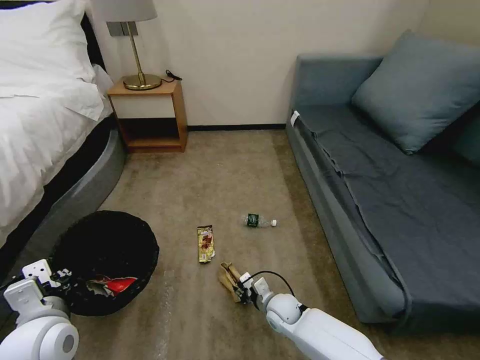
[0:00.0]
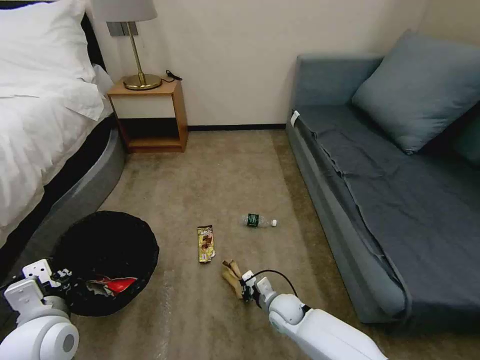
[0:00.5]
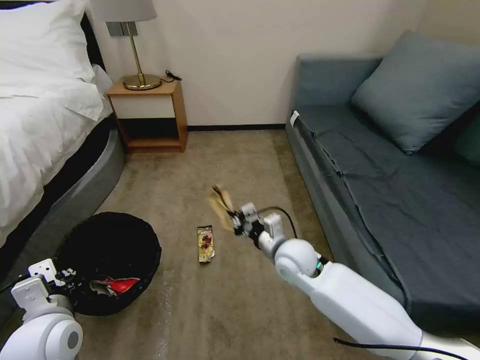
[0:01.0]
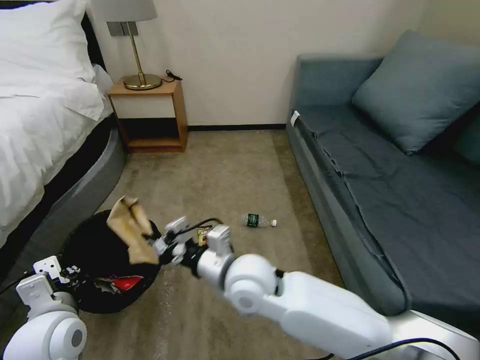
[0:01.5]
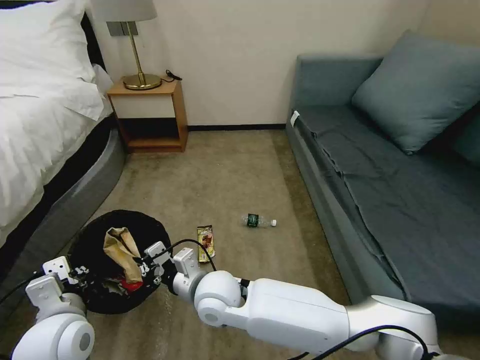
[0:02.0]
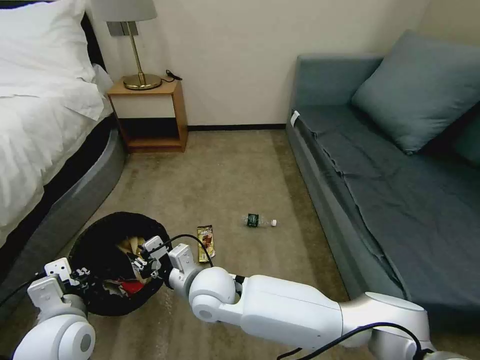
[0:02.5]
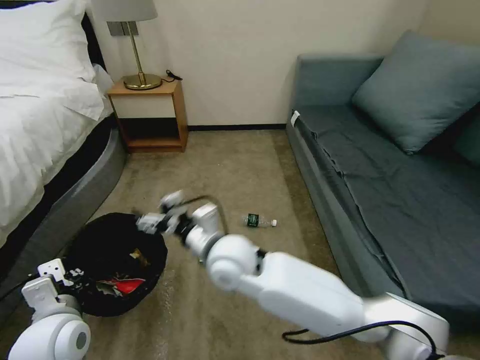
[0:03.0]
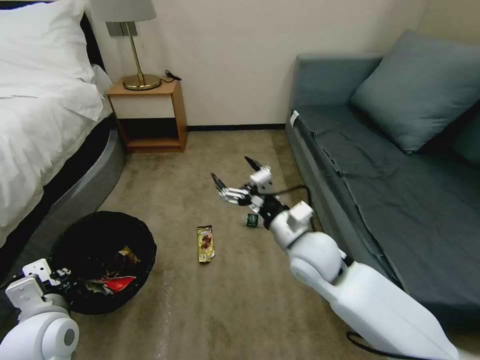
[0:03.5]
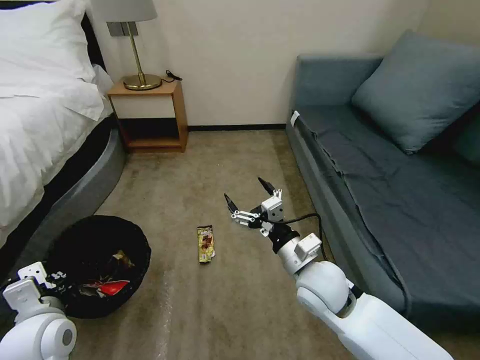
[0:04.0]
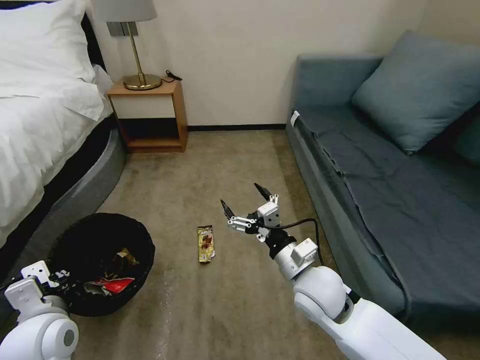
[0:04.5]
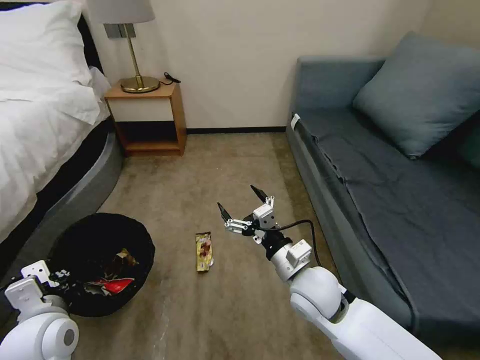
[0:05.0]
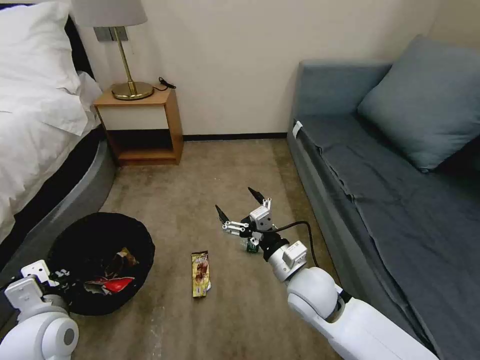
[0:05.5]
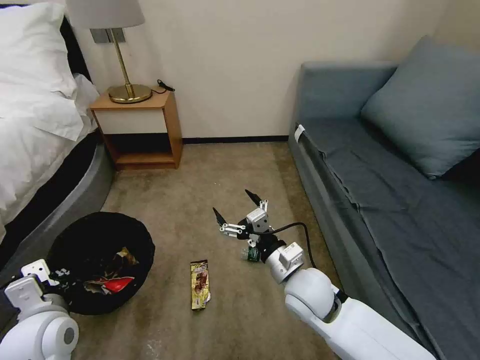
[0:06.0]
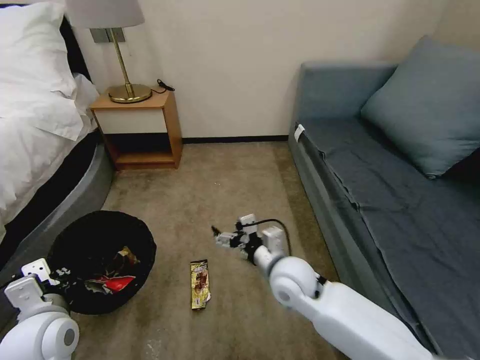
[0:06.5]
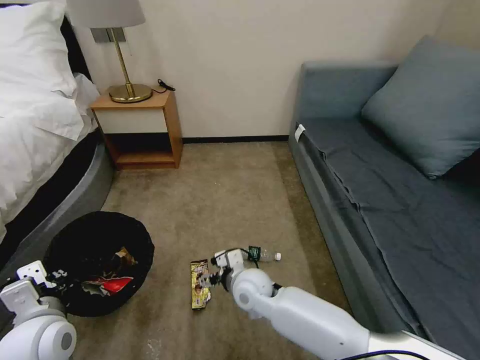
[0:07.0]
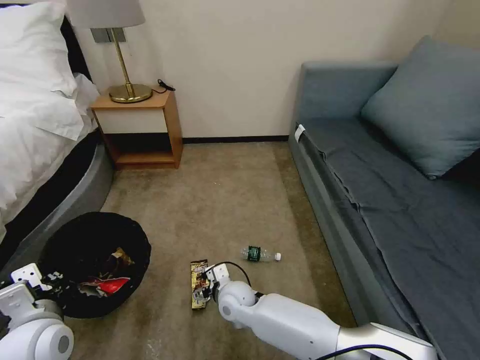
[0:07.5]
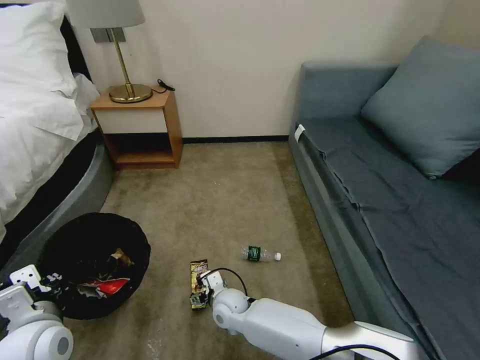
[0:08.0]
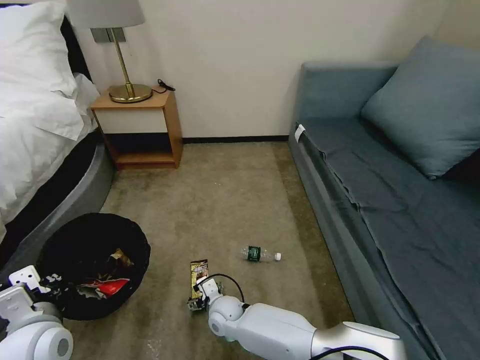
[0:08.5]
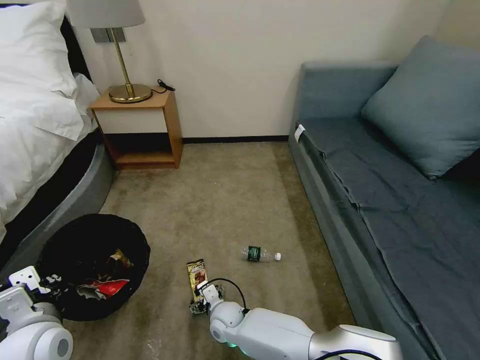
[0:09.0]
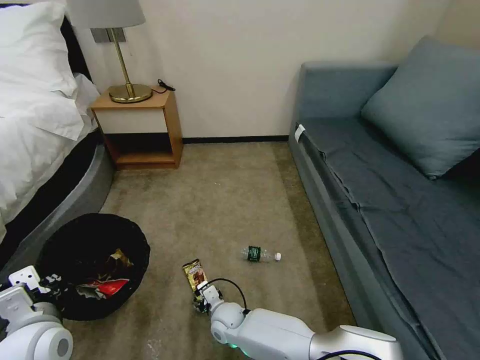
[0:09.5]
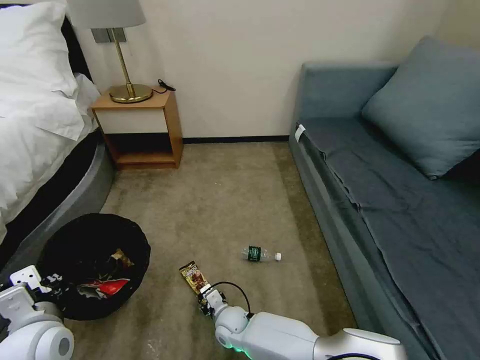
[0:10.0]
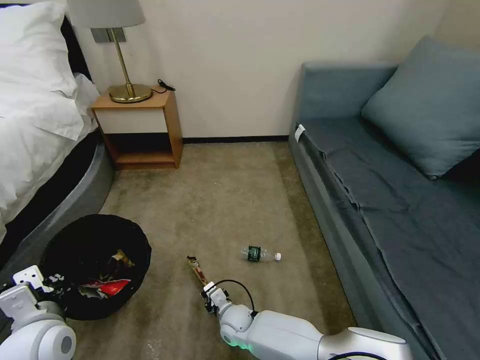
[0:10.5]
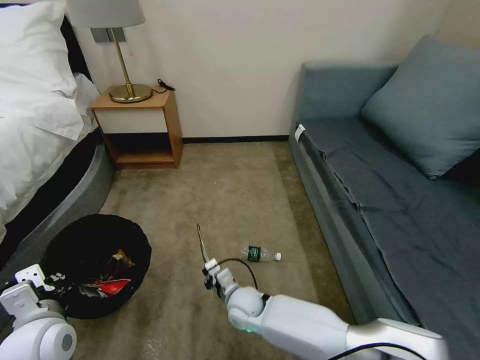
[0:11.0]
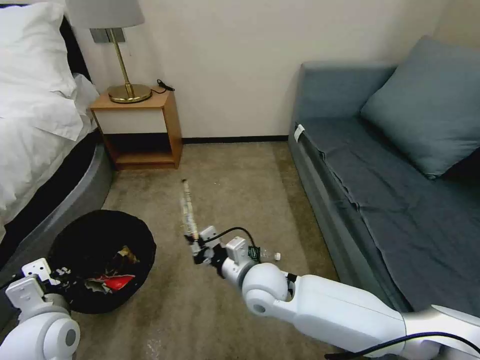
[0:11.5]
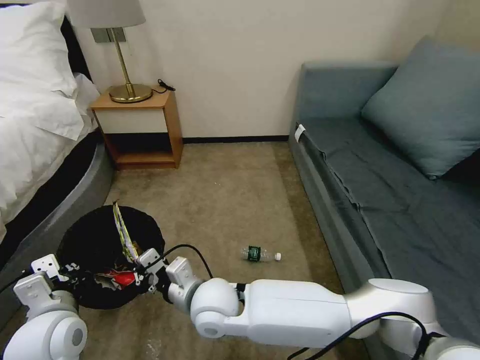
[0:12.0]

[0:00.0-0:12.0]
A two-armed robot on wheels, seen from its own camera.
Task of the whole recording: Pick up the trash bin, then pick up the garbage on the floor and place it into the trash bin.
0:00.0 to 0:02.0: The right gripper is displaced upward and to the left by some 30 cm, and closes its fingers.
0:02.0 to 0:04.0: The right gripper moves to the right, some 20 cm, and opens up.
0:06.0 to 0:08.0: The right gripper travels downward and to the left by some 25 cm.
0:08.0 to 0:10.0: The right gripper is displaced downward by approximately 5 cm, and closes its fingers.
0:10.0 to 0:12.0: The right gripper is displaced upward by some 25 cm, and closes its fingers.

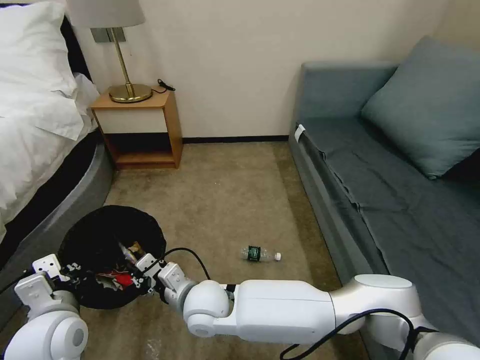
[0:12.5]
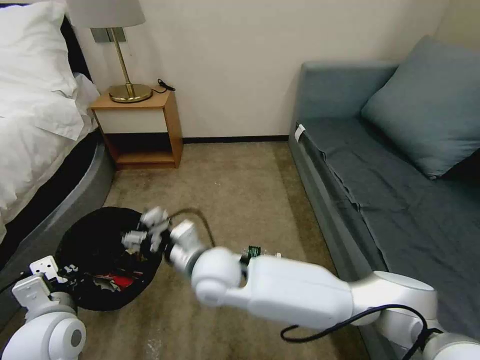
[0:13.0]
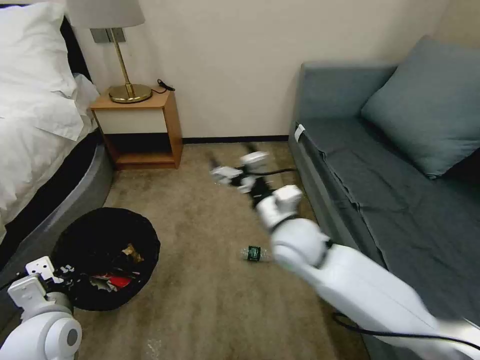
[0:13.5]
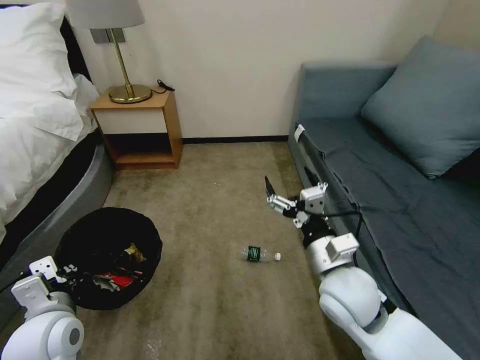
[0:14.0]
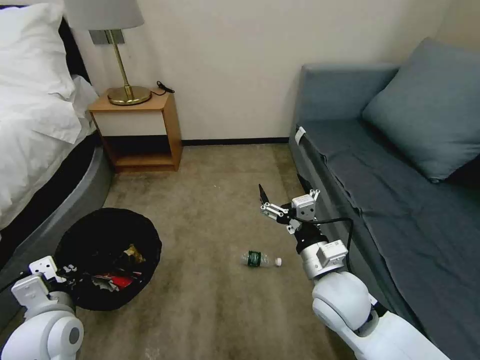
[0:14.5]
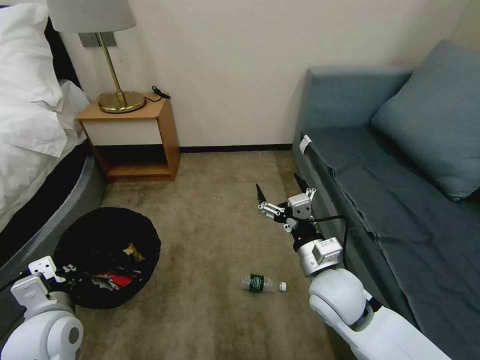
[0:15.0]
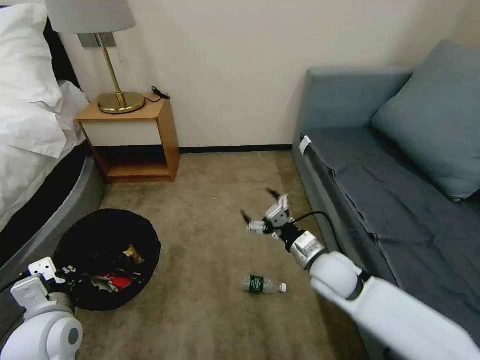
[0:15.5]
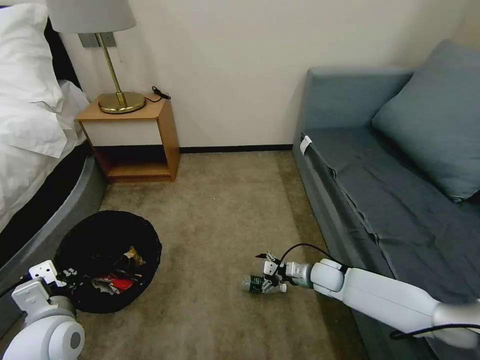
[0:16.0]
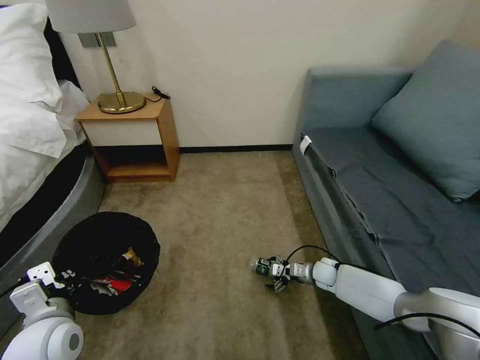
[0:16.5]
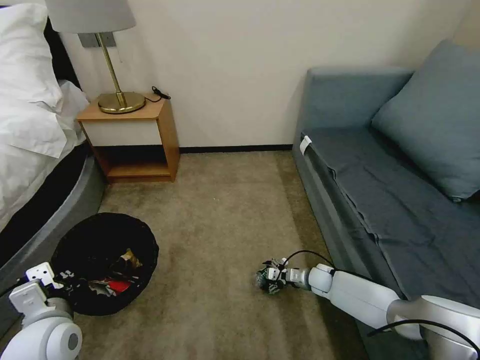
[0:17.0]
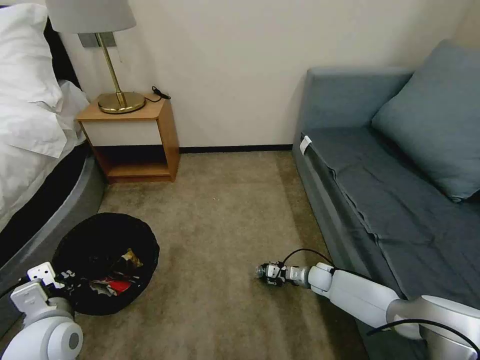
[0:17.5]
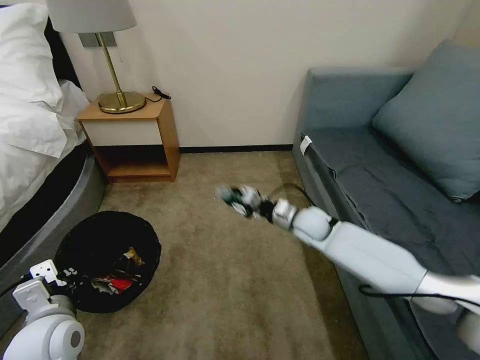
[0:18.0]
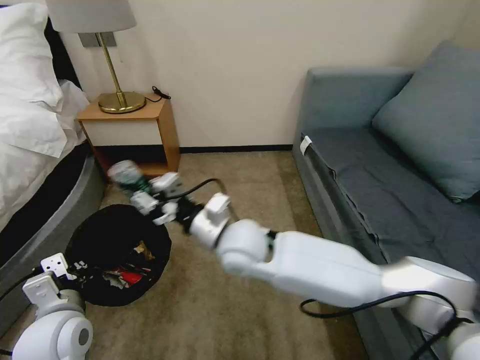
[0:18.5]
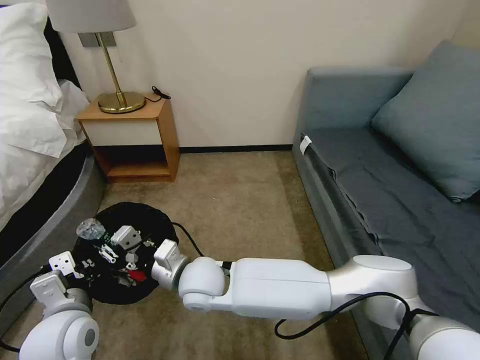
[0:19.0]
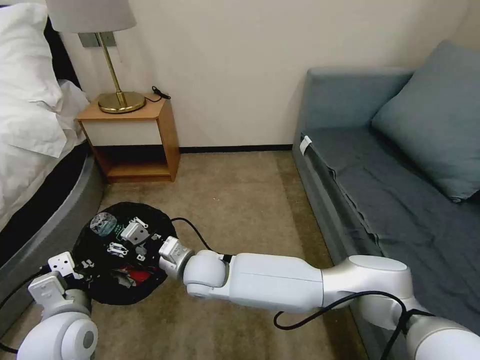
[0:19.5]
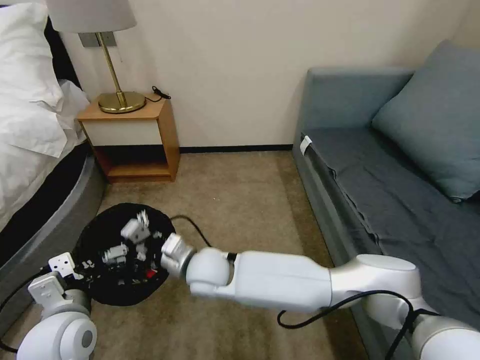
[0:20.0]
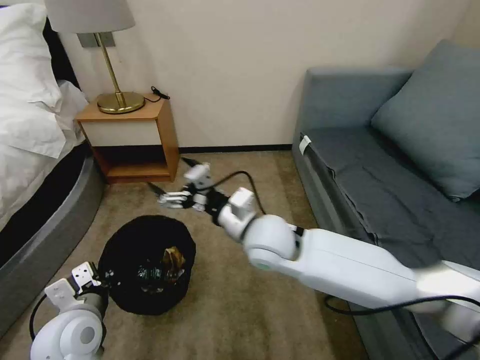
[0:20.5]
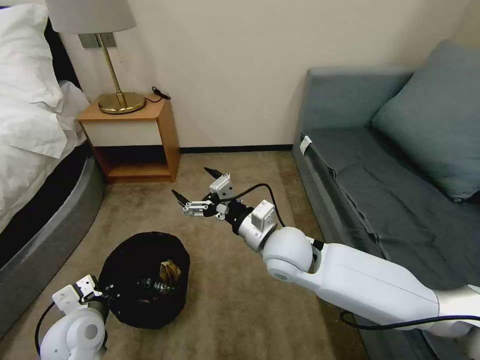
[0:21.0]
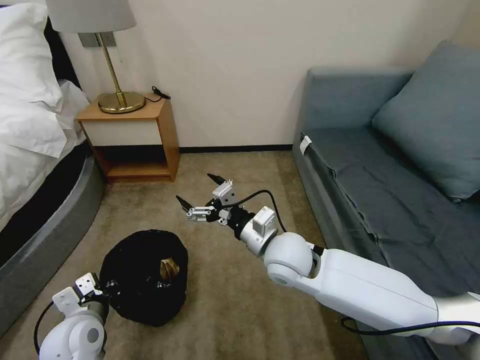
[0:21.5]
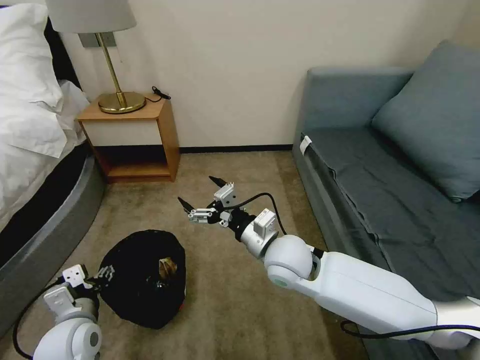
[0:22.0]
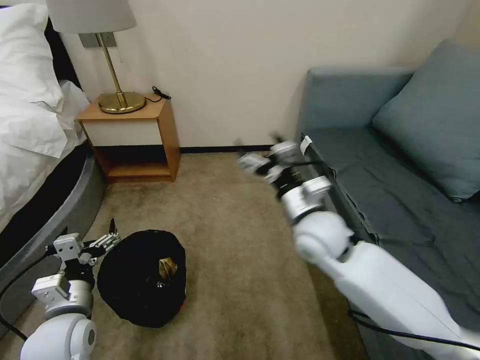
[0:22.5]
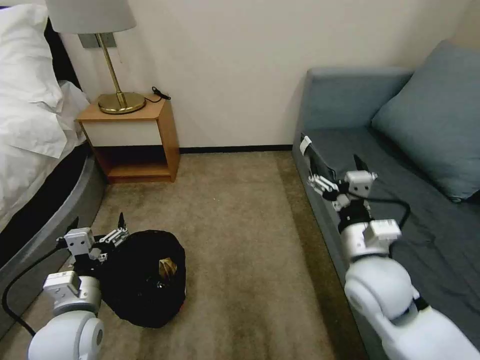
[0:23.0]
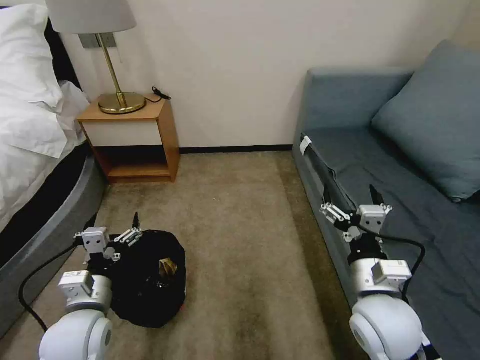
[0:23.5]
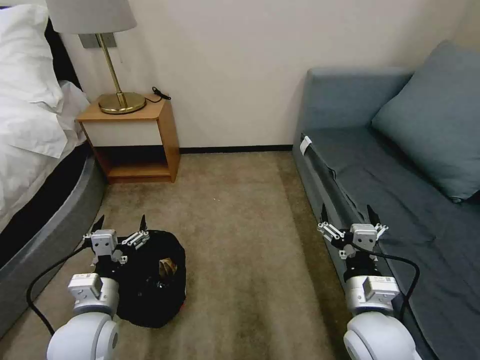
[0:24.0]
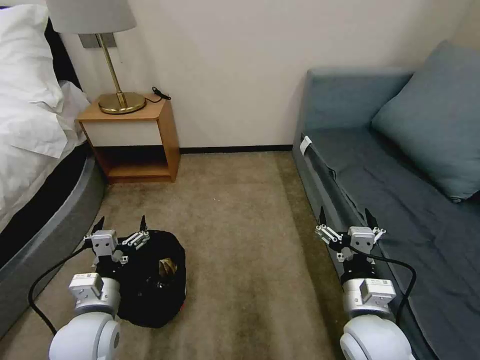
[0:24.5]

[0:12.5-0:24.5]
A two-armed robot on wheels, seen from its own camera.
Task of the whole recording: Pick up the trash bin, then pick up the garbage on the floor and place it into the trash bin.
0:12.5 to 0:14.5: The right gripper heads to the right, covering roughly 25 cm, and opens up.
0:14.5 to 0:16.5: The right gripper moves downward, forward and to the right, some 35 cm.
0:16.5 to 0:18.5: The right gripper is displaced upward and to the left by roughly 40 cm, and closes its fingers.
0:18.5 to 0:20.5: The right gripper travels to the left and back again, some 10 cm each way, and opens.
0:20.5 to 0:22.5: The left gripper opens up. Meanwhile the right gripper shifts some 10 cm to the right.
0:22.5 to 0:24.5: The right gripper shifts approximately 20 cm backward and downward.

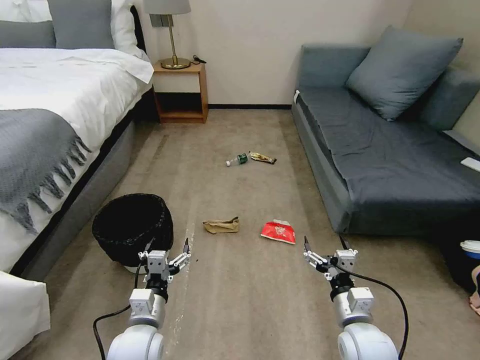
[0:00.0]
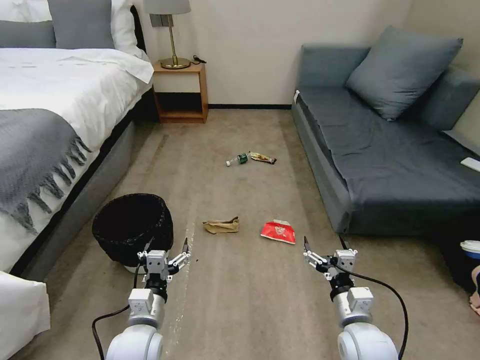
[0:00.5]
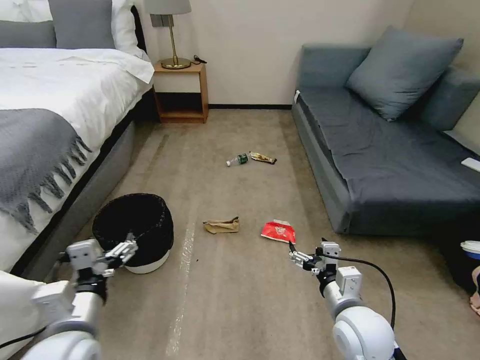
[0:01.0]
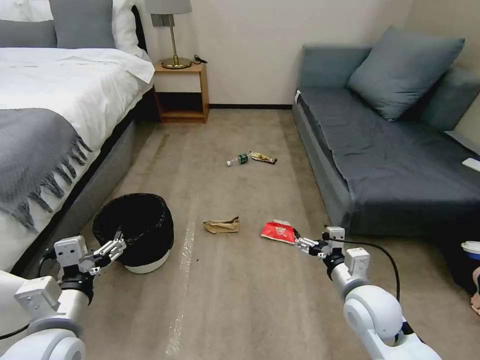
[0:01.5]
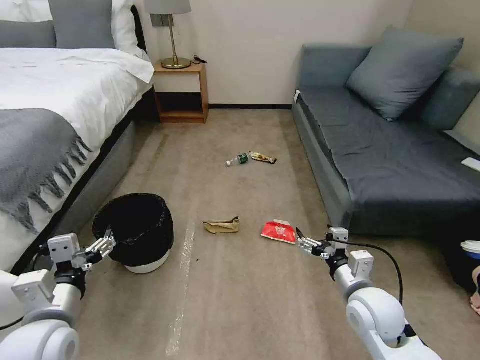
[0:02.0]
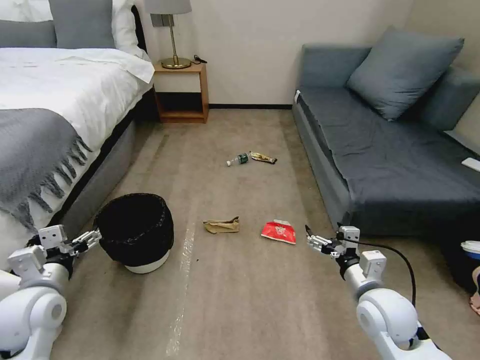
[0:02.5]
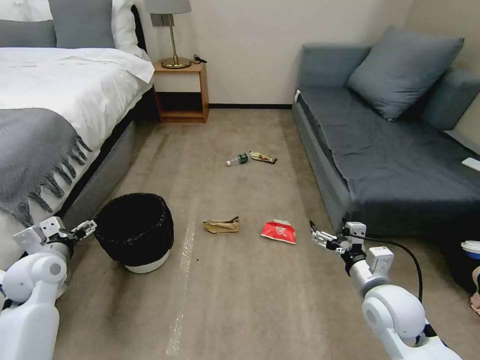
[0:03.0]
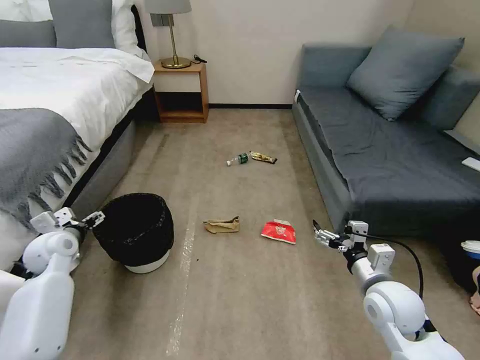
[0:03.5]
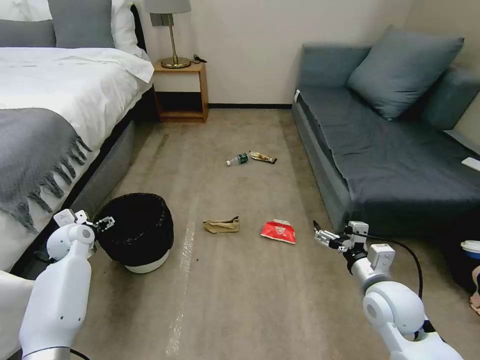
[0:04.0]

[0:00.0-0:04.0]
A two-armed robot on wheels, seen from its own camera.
Task of the whole recording: Pick up the trash bin, then pick up the garbage on the floor and place it into the trash bin.
0:02.0 to 0:04.0: The left gripper is displaced forward and to the left by some 30 cm.
